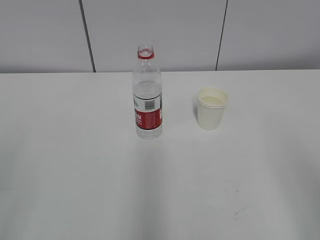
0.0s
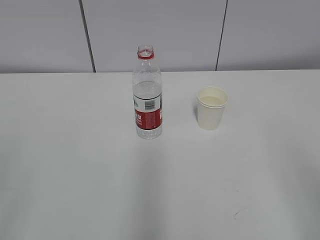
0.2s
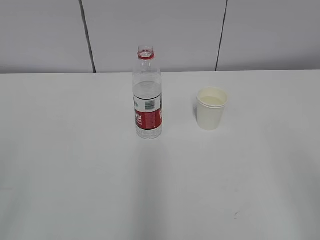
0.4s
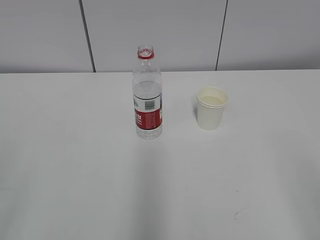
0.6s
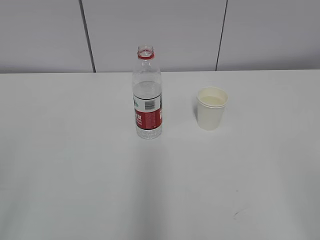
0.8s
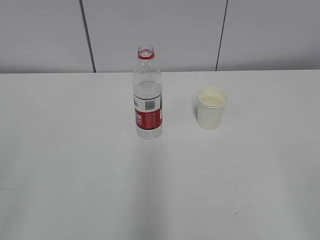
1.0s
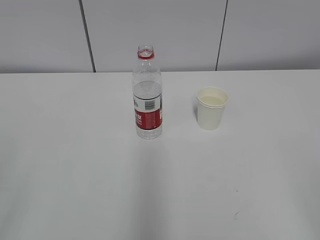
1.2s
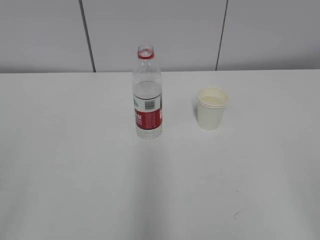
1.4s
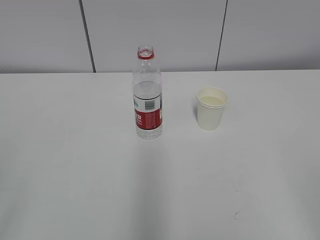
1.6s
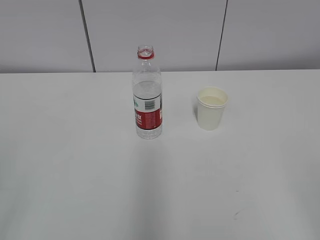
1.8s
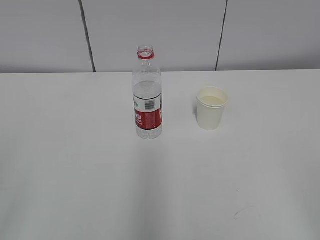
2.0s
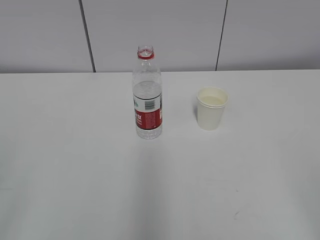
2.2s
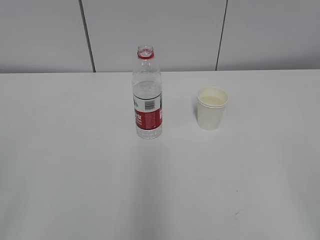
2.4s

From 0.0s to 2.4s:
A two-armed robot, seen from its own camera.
From 1.2s to 2.4s: The two grippers keep their place.

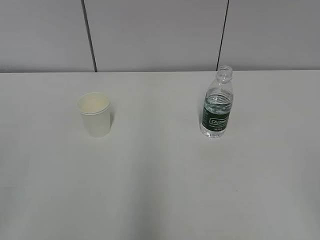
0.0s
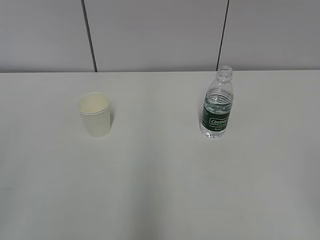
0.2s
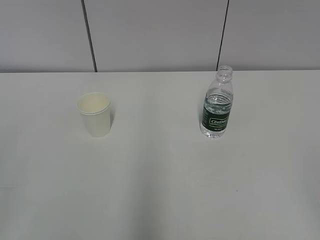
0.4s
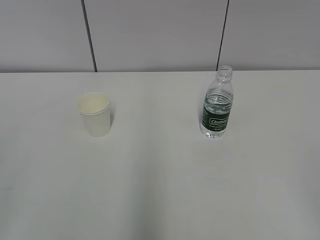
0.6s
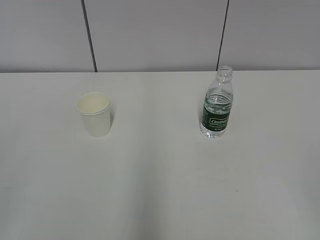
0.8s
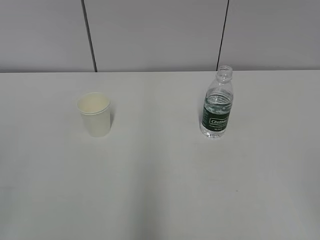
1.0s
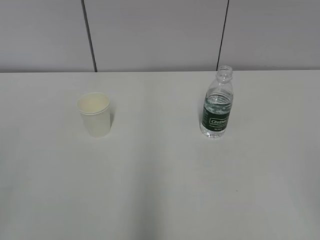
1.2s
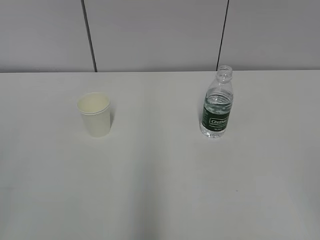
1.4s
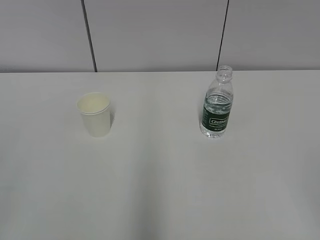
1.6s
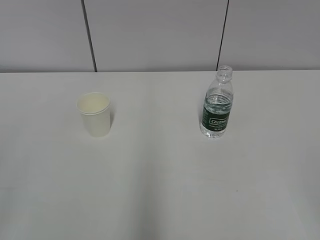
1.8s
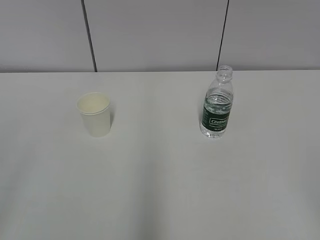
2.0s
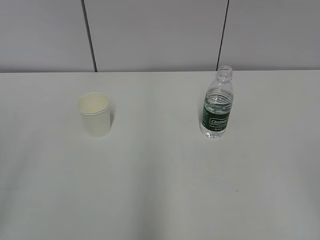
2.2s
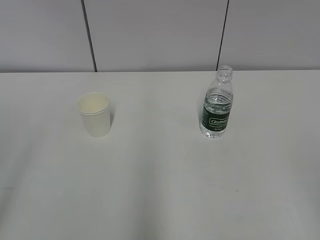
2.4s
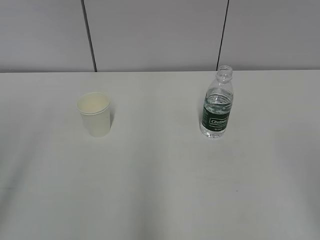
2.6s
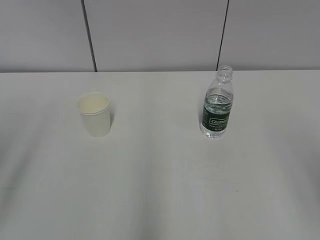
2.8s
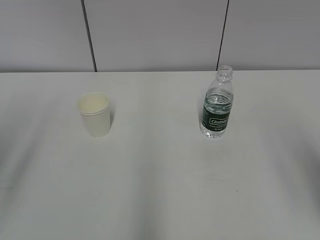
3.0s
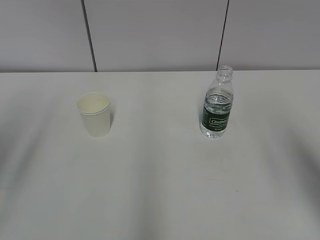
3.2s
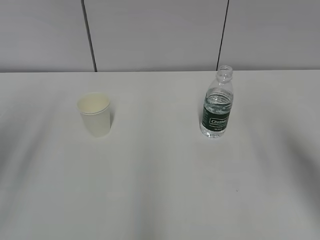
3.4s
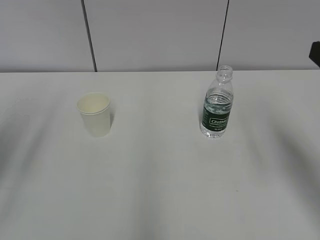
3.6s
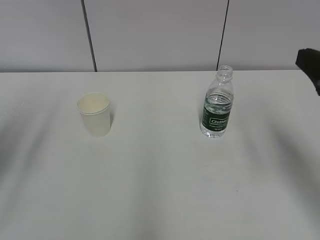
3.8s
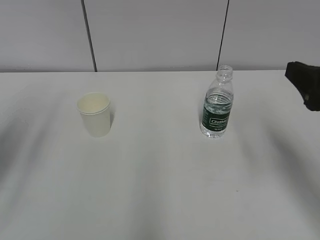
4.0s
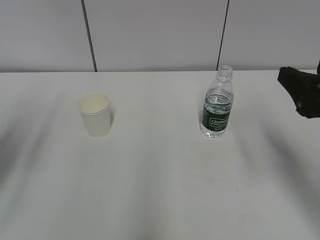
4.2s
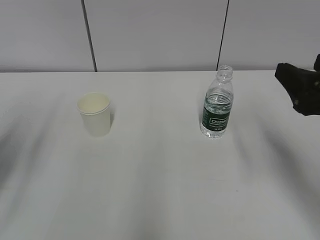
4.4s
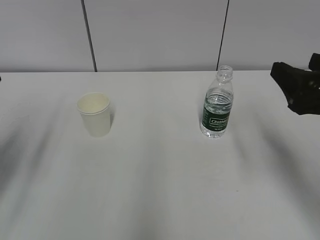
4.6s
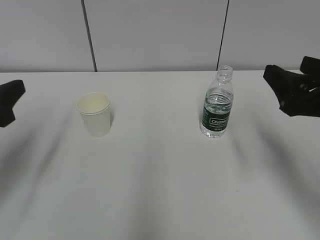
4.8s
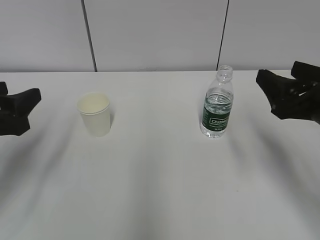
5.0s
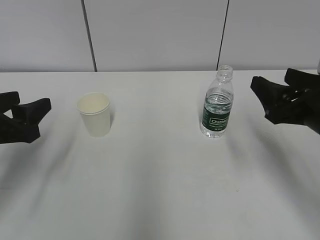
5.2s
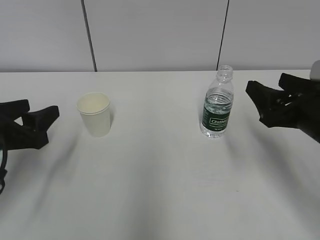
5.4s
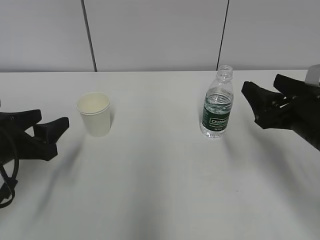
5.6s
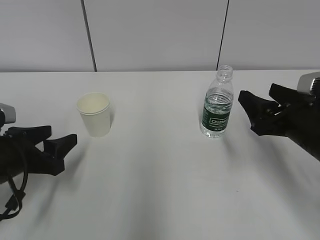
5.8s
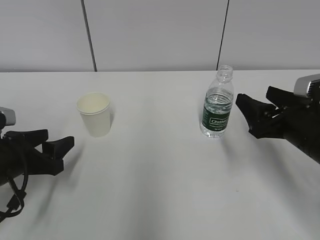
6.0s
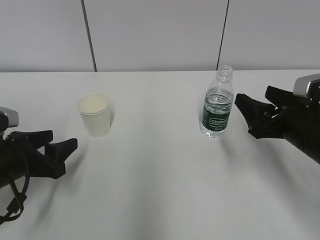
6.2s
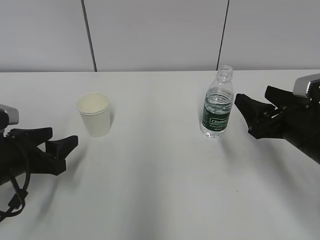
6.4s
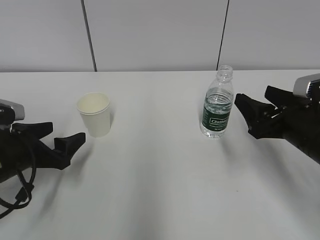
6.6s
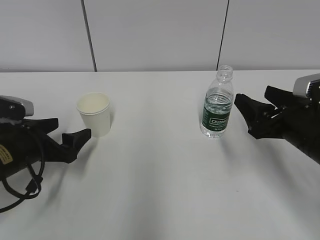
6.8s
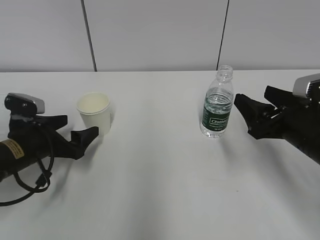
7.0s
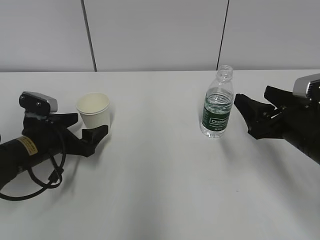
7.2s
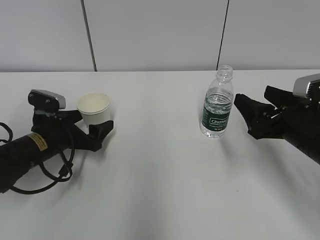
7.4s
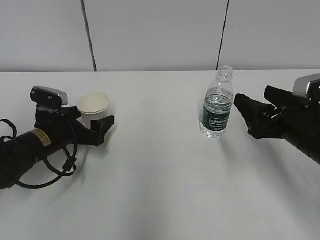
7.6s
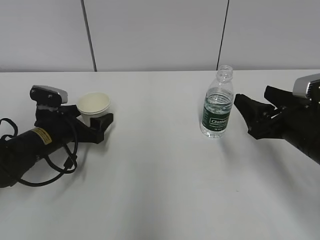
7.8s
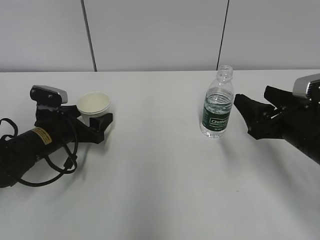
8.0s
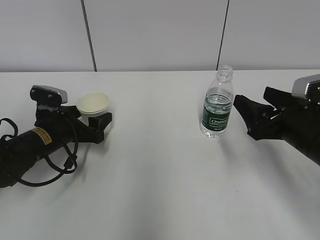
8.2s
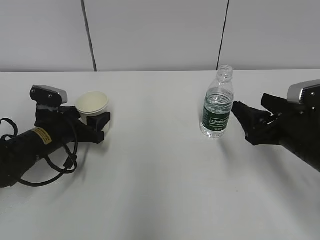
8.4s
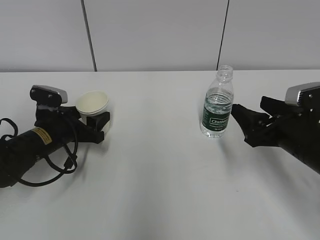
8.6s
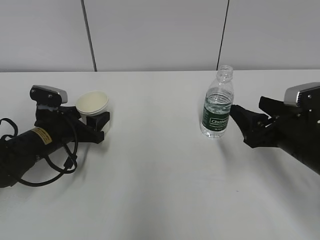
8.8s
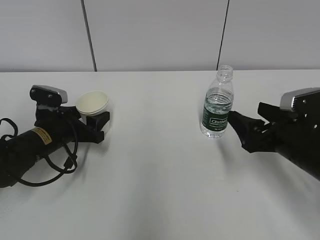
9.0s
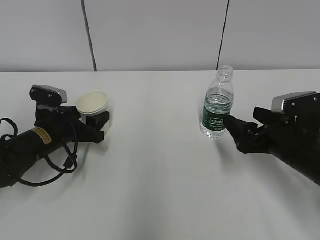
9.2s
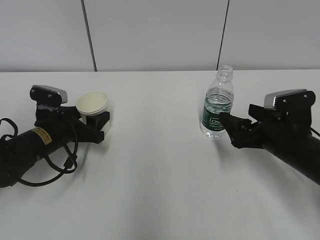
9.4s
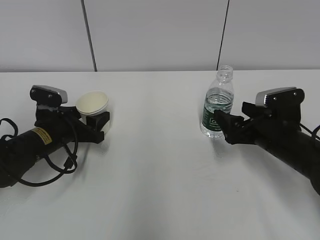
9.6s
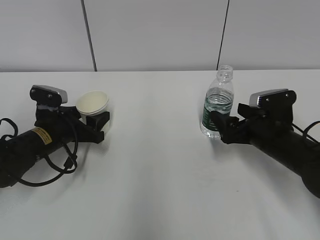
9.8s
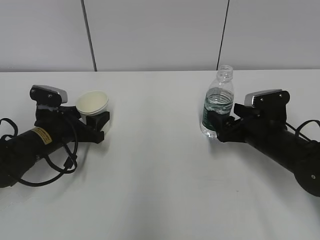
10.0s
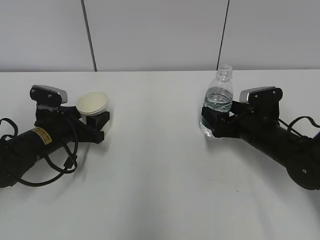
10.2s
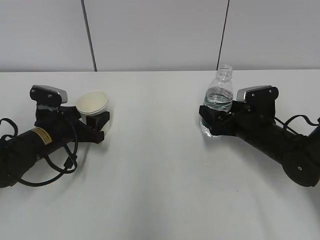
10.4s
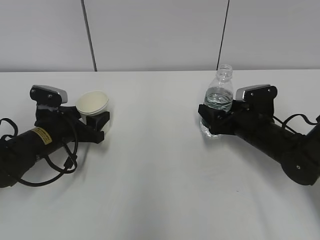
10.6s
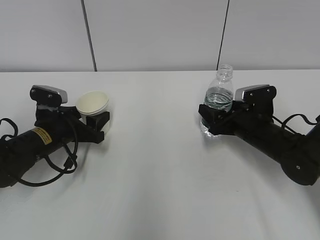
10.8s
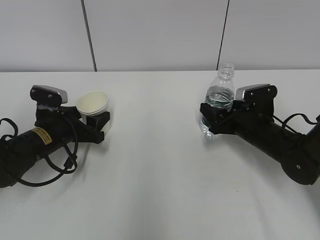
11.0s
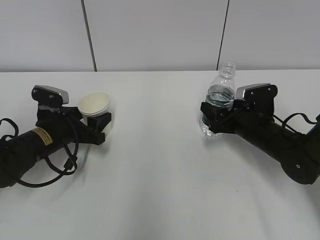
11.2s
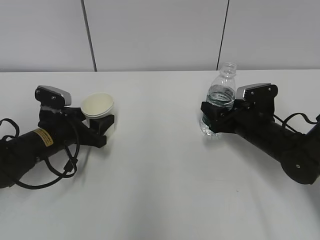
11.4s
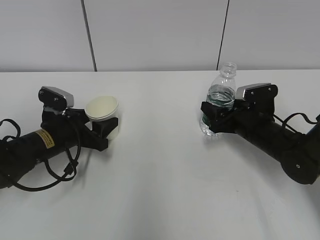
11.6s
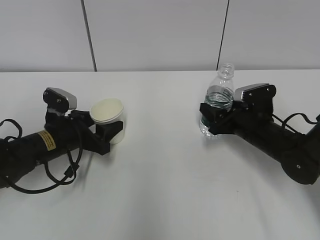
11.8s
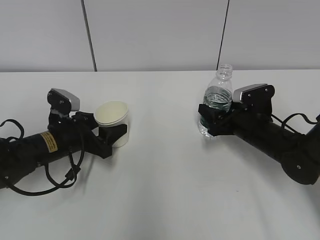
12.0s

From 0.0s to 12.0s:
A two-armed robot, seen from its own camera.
Step, from 0.0s to 10.2s: Grab the water bottle with the right hand.
From 1.6s to 3.0s: The right gripper travels forward and upward by some 15 cm.
From 3.0s to 4.4s: The right gripper is displaced forward and downward by about 15 cm.
From 4.4s to 6.0s: The left gripper is displaced downward by approximately 15 cm. The right gripper shifts roughly 10 cm downward and forward.
From 6.0s to 7.6s: The left gripper is displaced forward by approximately 10 cm, and opens up.
From 7.6s to 9.0s: The left gripper closes its fingers.
From 9.0s to 10.4s: The right gripper is displaced forward and downward by about 10 cm.
From 10.4s to 12.0s: The right gripper closes up.

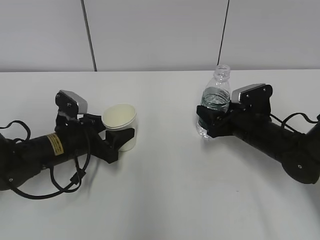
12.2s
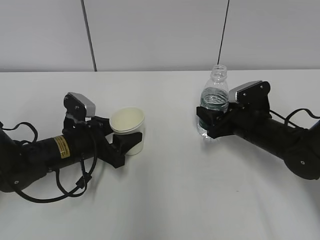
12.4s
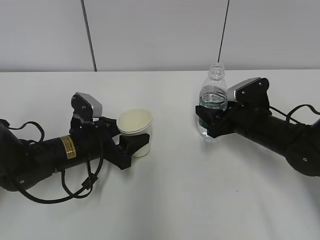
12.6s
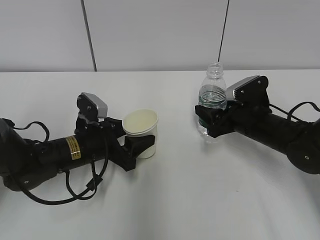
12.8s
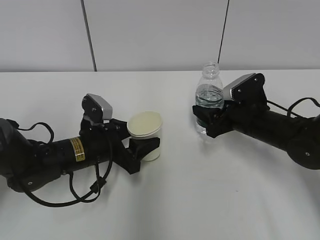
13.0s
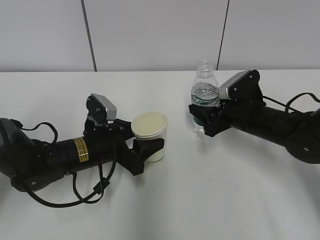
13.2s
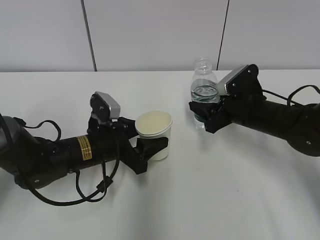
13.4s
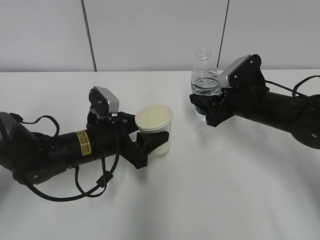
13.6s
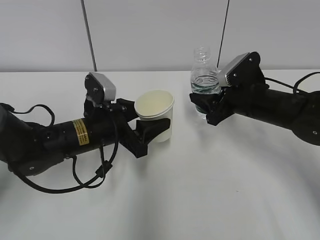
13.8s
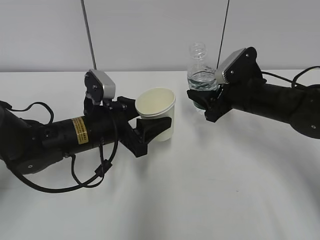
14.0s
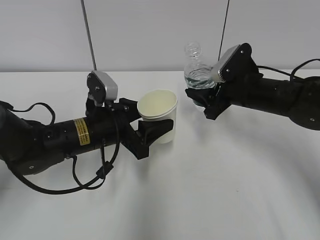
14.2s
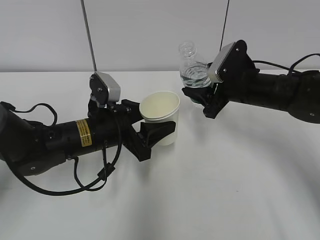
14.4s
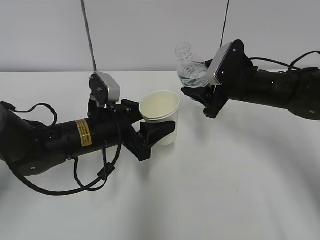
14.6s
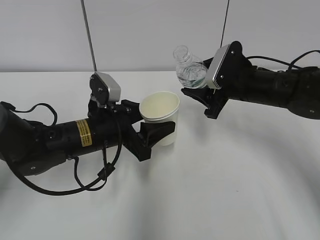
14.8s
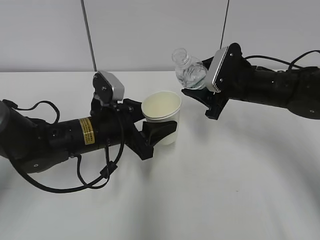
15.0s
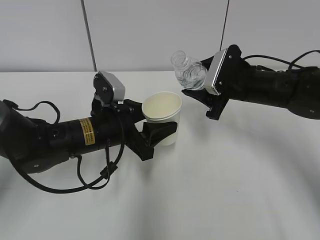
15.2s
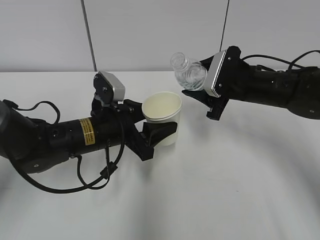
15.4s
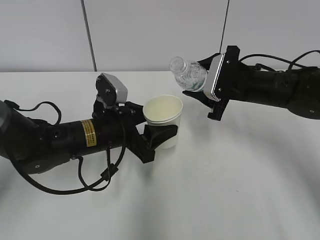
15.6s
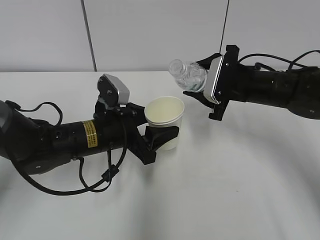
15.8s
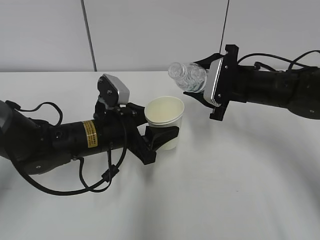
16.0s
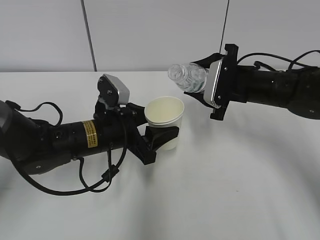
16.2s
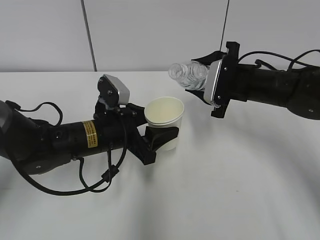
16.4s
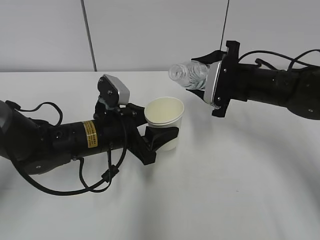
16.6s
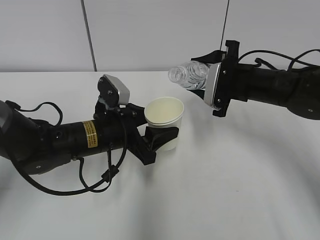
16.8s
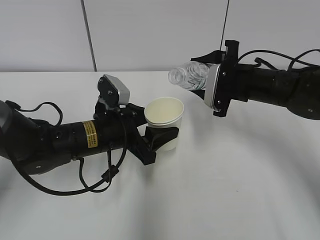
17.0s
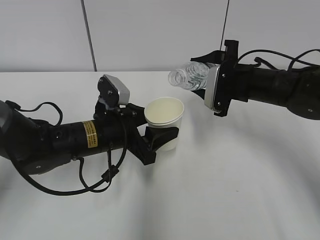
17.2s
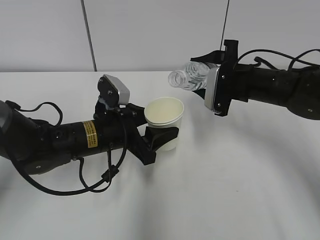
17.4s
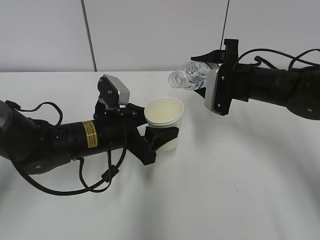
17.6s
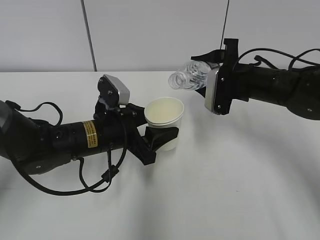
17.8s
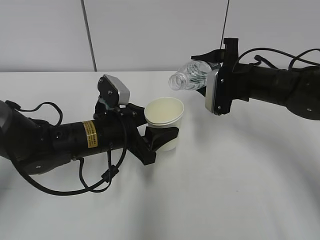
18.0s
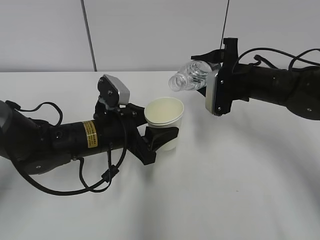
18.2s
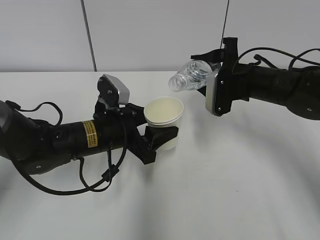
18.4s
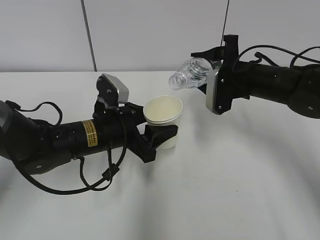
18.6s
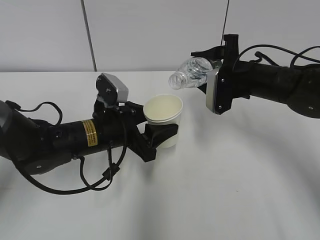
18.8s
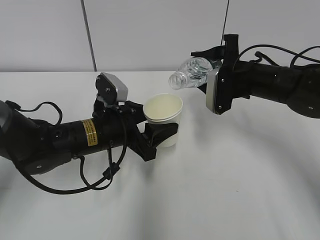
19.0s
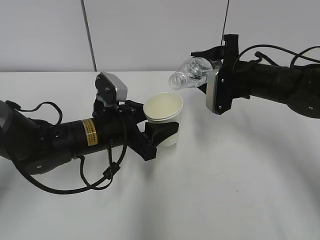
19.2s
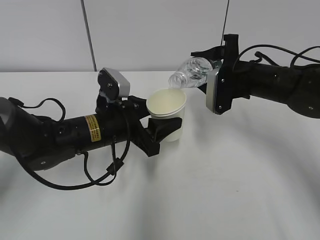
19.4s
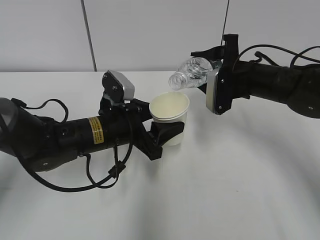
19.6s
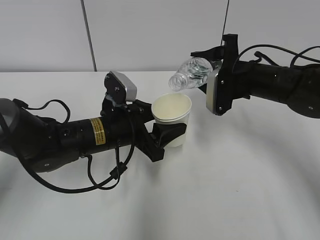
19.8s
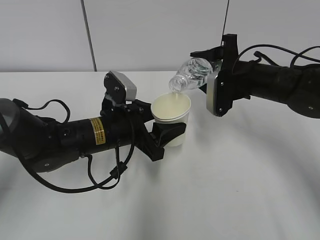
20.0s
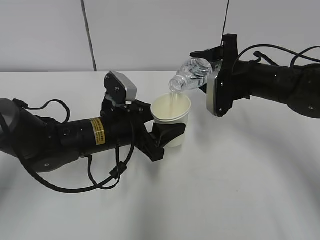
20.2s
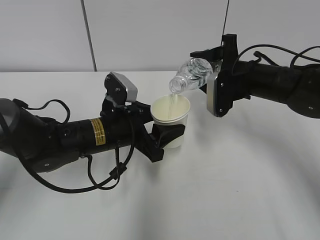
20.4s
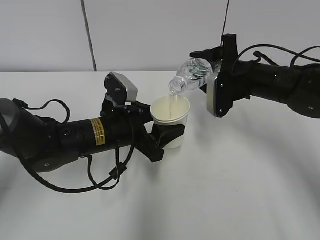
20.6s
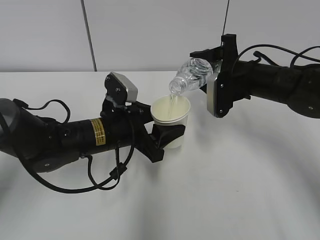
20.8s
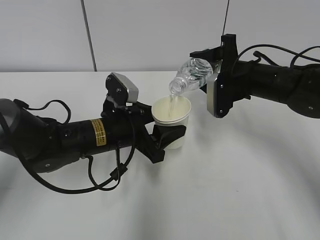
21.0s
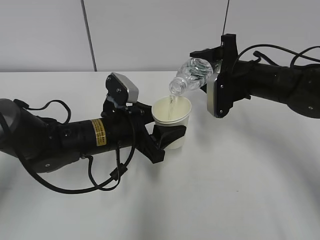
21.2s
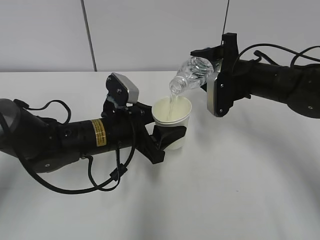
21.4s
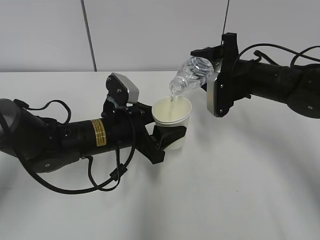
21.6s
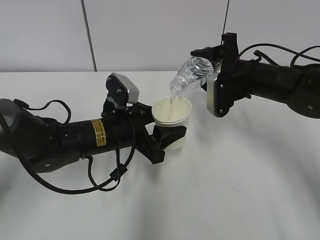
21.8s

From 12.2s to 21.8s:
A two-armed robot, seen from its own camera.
Step, from 12.2s to 16.6s: Lift the paper cup with the left hand.
Step, from 16.8s to 21.2s: Fill water with the left hand.
Step, from 16.8s to 21.2s: Pour water with the right hand.
From 12.2s to 13.8s: The left gripper is displaced to the right by about 5 cm. Meanwhile the right gripper goes roughly 5 cm upward.
From 17.0s to 18.6s: The grippers move only a little.
From 18.6s to 20.2s: The two grippers keep their place.
From 20.2s to 21.8s: Both grippers stay about where they are.
